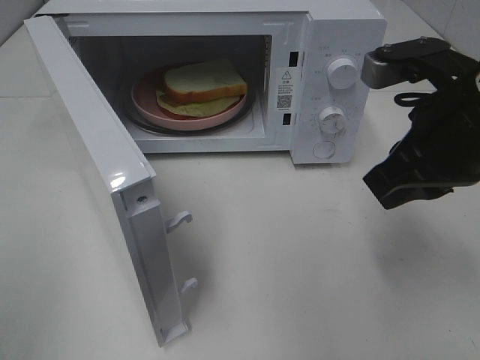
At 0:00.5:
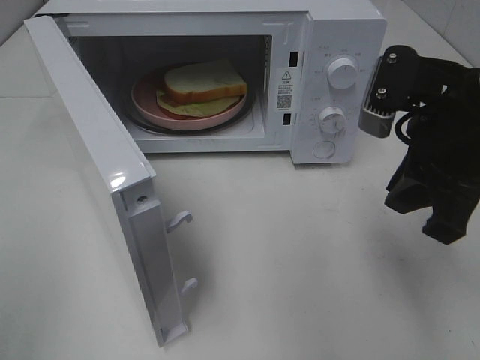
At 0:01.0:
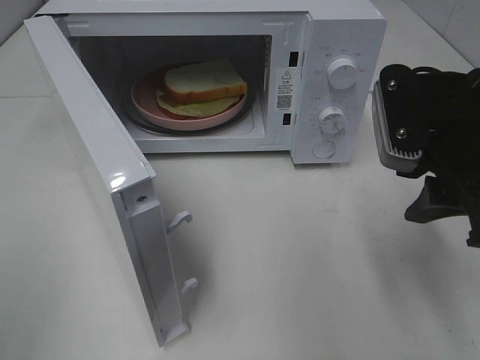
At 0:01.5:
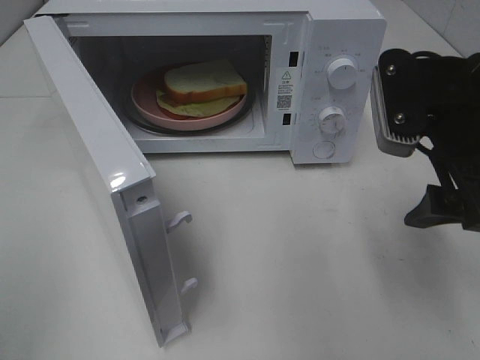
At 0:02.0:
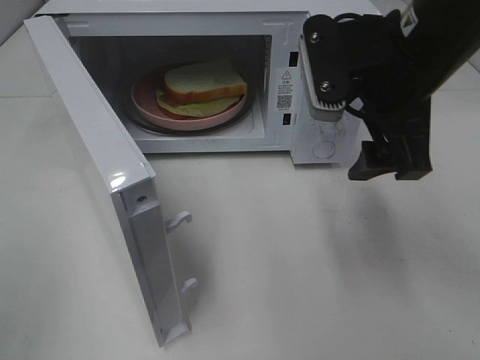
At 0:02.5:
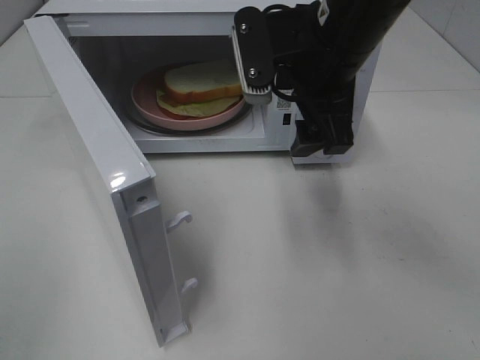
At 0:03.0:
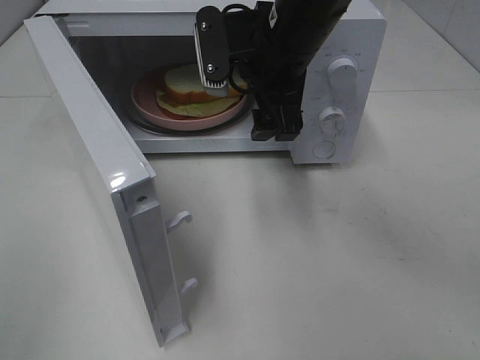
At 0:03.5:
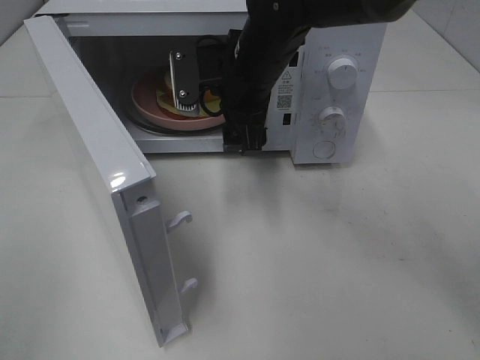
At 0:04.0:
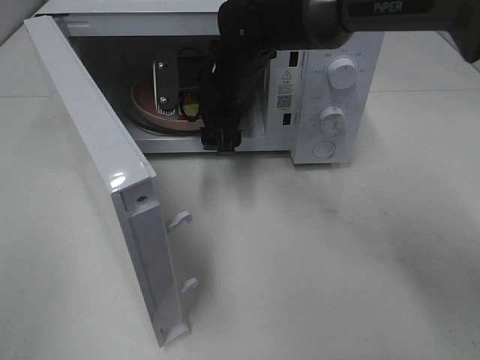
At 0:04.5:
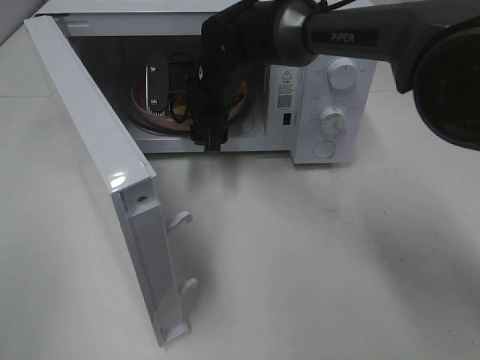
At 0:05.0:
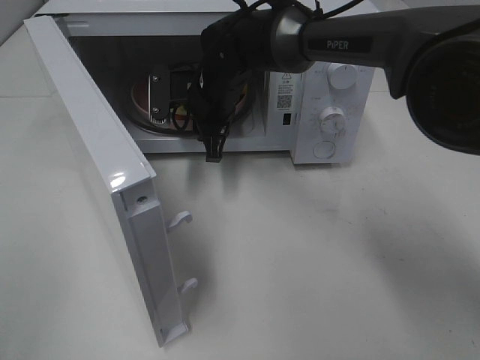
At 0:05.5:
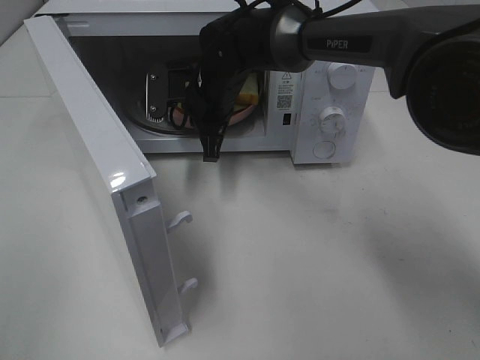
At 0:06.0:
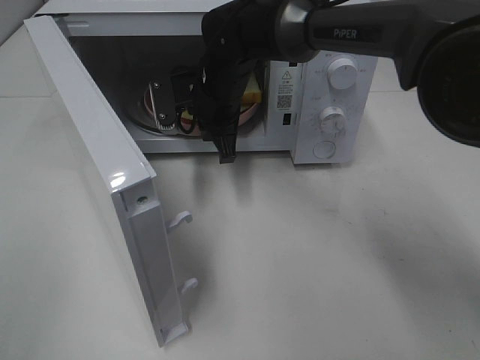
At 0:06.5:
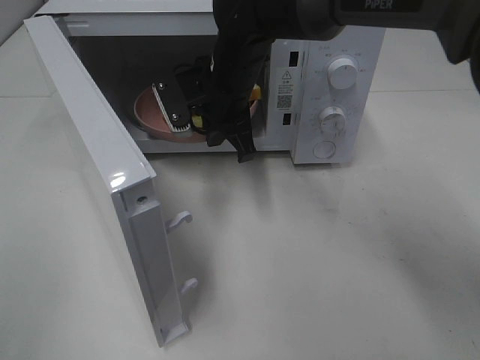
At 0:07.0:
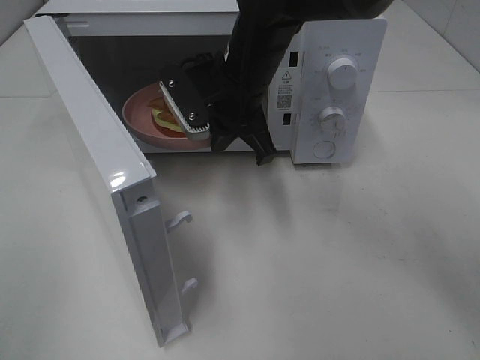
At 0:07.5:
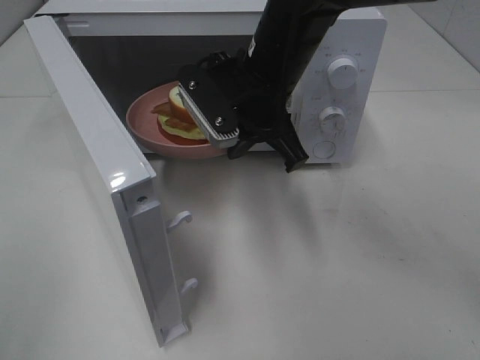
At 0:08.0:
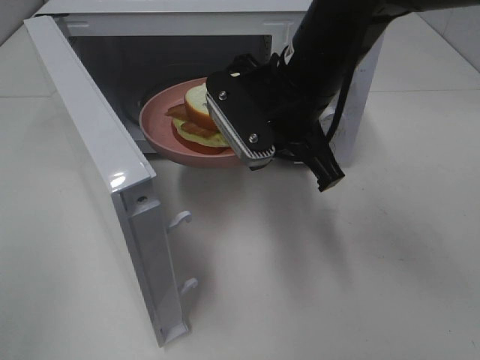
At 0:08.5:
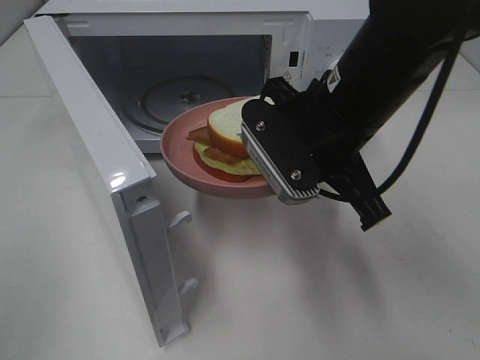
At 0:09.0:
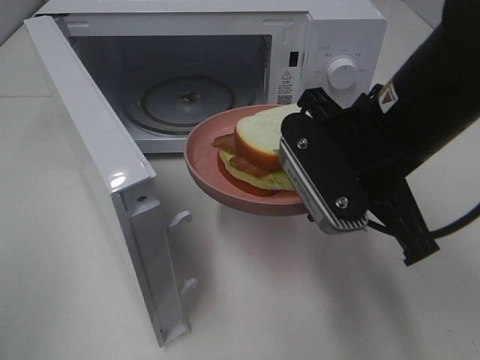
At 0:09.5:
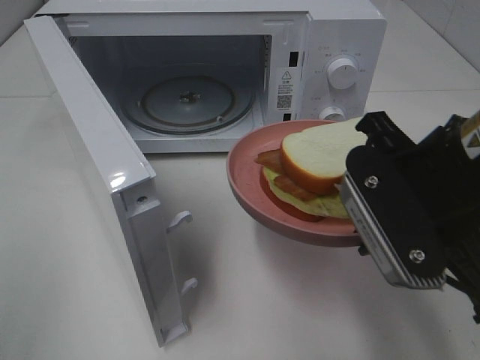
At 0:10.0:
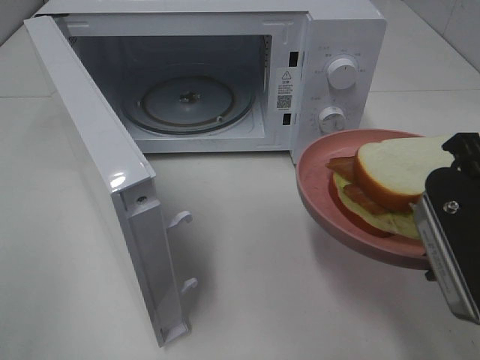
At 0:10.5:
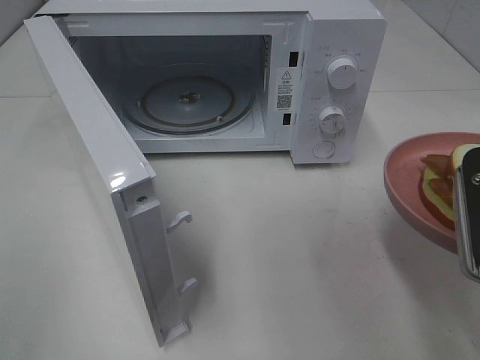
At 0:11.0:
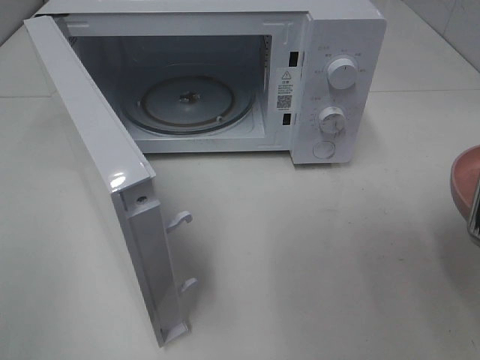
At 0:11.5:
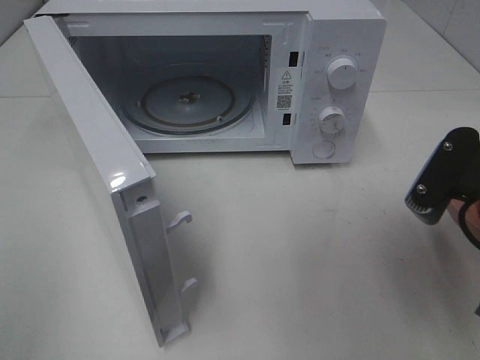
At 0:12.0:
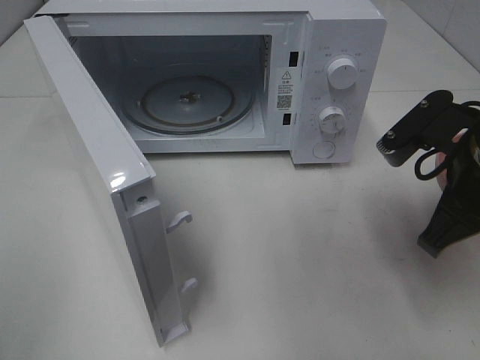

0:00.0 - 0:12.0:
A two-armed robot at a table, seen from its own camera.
Task of the whole recording: Heat Sandwich.
Step, 0:00.0 - 0:05.5: Right hand: grab the plate with the sandwich.
0:00.0 - 0:02.0: The right gripper ends up about 5 cm from where it was, and opens up.
0:02.0 - 0:04.0: The right gripper is displaced forward, to the left and downward by about 25 cm.
0:04.0 - 0:06.0: The right gripper closes.
0:06.0 - 0:08.0: The right gripper goes approximately 15 cm backward, to the right and upward.
0:08.0 - 0:10.0: The right gripper goes about 20 cm backward and to the right.
0:10.0 - 0:12.0: The right gripper shifts roughly 10 cm forward.

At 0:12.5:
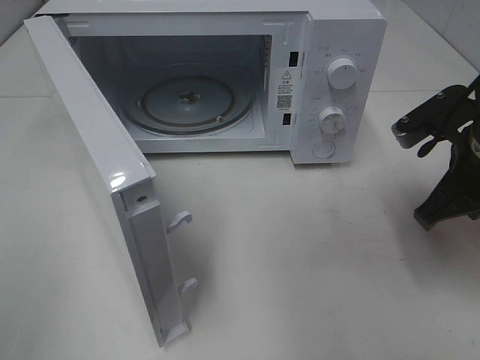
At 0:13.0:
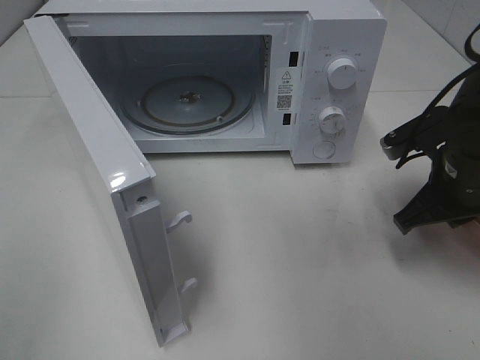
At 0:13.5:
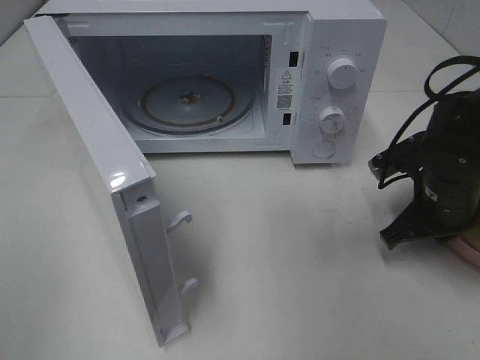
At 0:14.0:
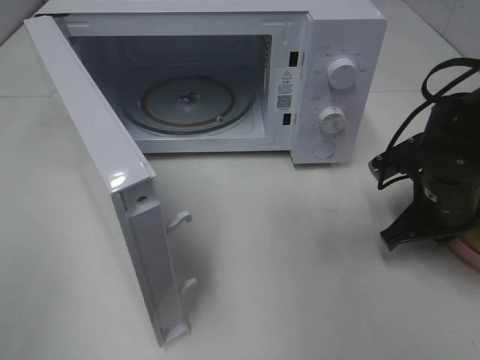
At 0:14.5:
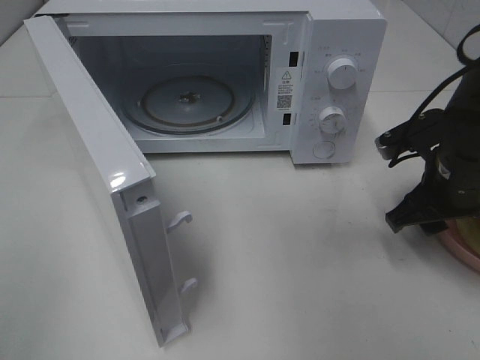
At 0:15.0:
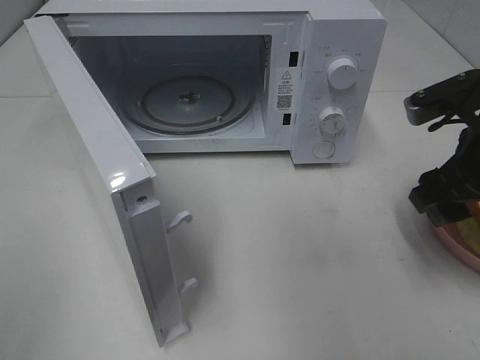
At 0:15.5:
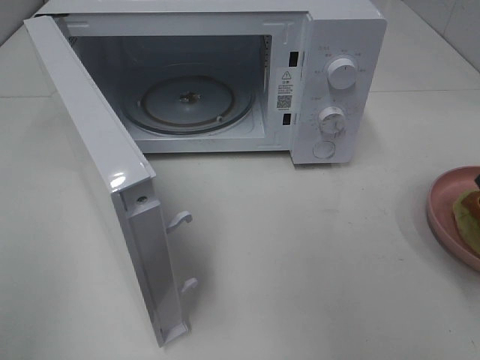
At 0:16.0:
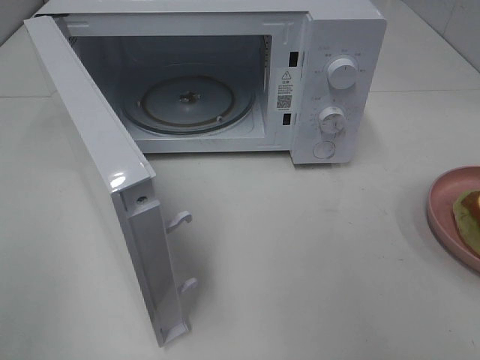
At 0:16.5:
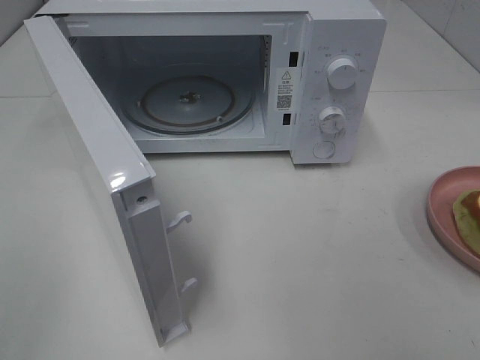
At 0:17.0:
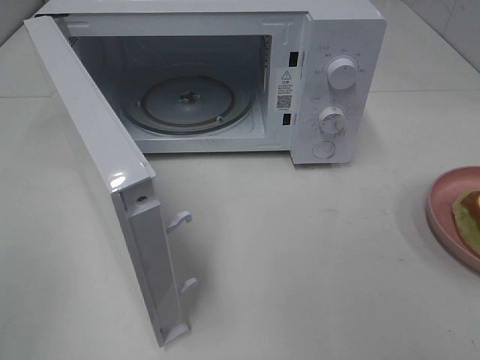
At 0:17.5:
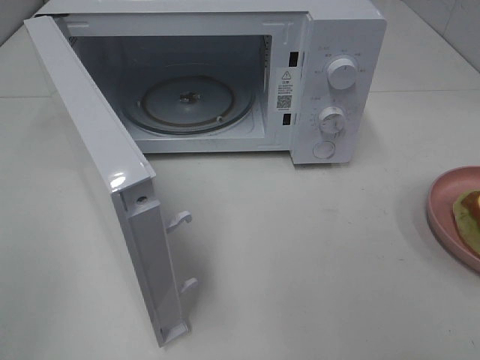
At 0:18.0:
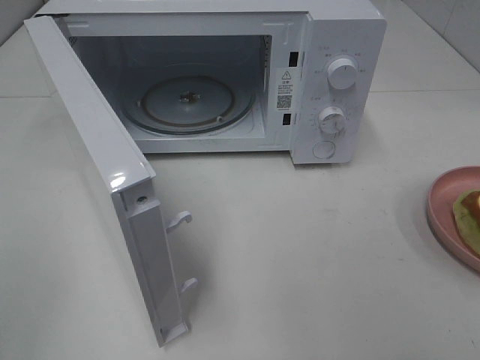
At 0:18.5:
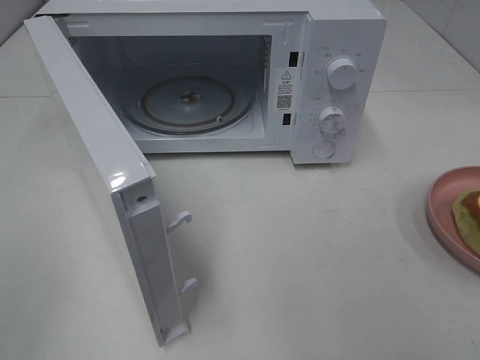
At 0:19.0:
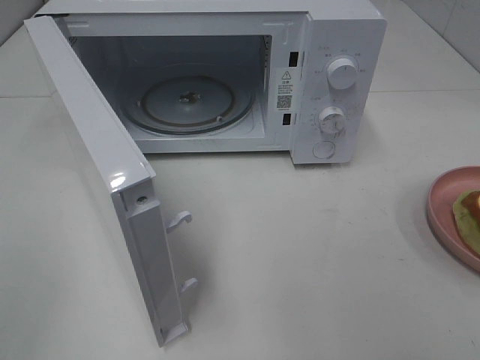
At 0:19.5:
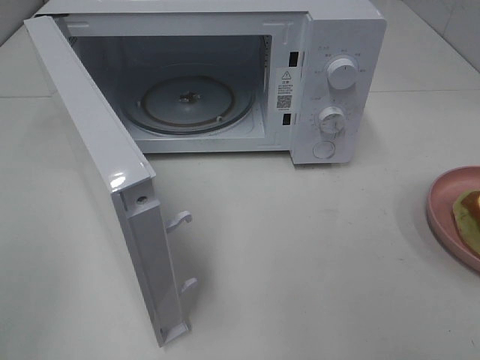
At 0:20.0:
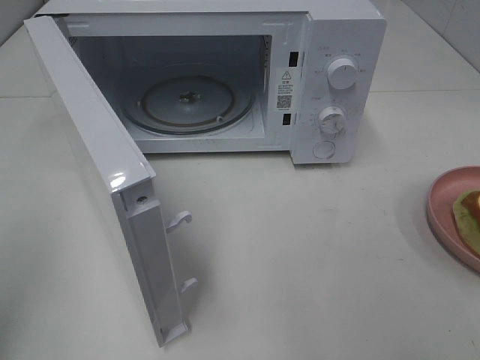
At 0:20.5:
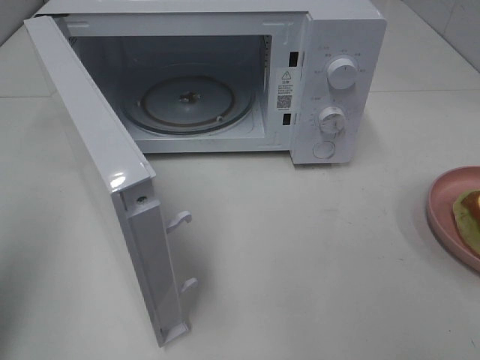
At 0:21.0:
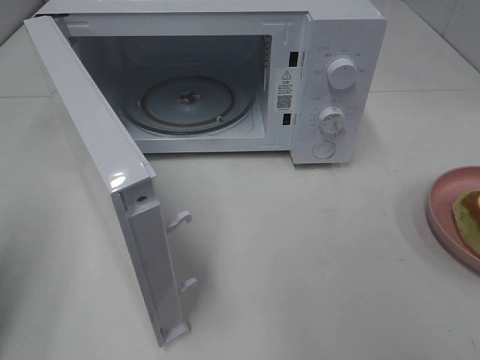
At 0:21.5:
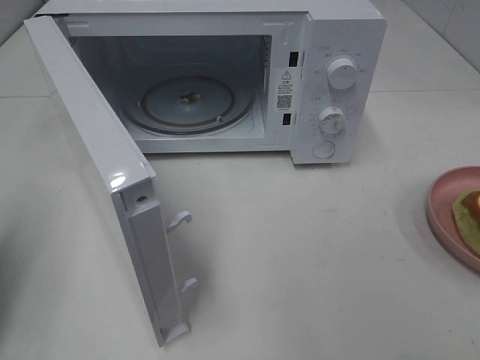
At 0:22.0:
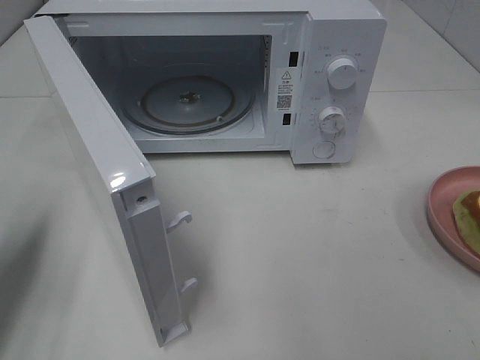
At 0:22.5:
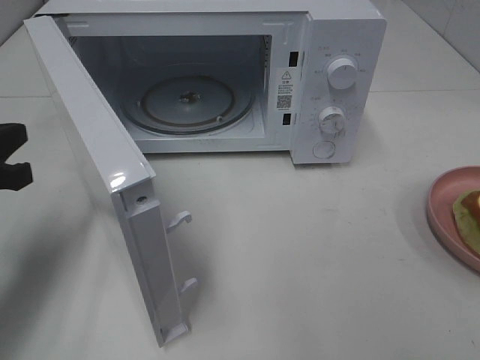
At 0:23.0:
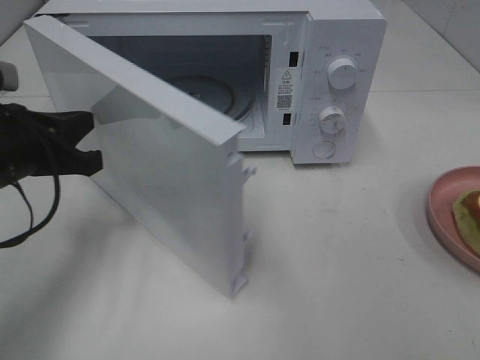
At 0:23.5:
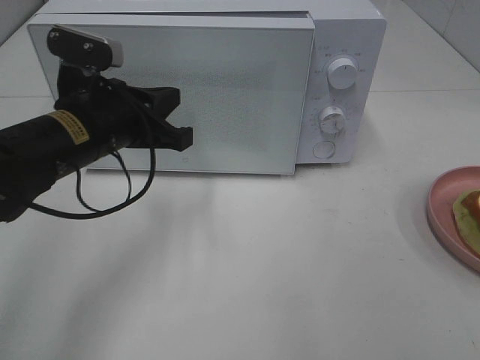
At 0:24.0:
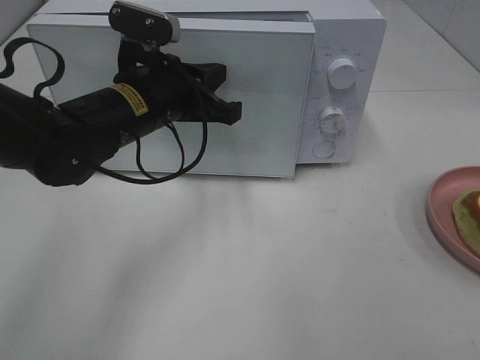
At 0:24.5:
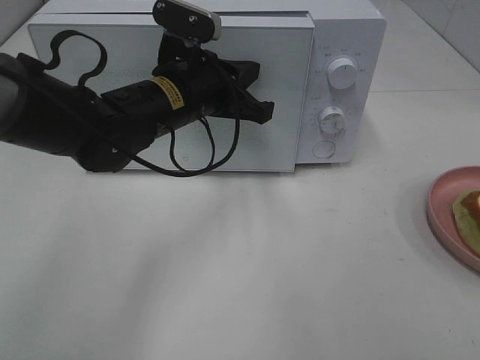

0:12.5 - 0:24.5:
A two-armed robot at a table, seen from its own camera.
Task of the whole recording: Heat Sandwich.
0:12.5 - 0:14.5: The right gripper opens its fingers.
0:14.5 - 0:16.5: The right gripper goes some 30 cm backward and upward.
0:18.5 - 0:20.5: The left gripper heads forward, covering roughly 10 cm, and closes its fingers.
0:20.5 - 0:22.5: The left gripper moves forward and downward, about 20 cm.
0:22.5 - 0:24.5: The left gripper is displaced to the right and forward by some 25 cm.

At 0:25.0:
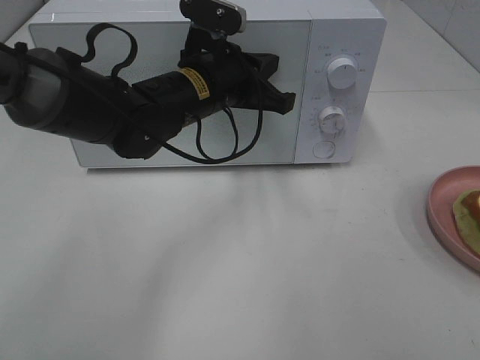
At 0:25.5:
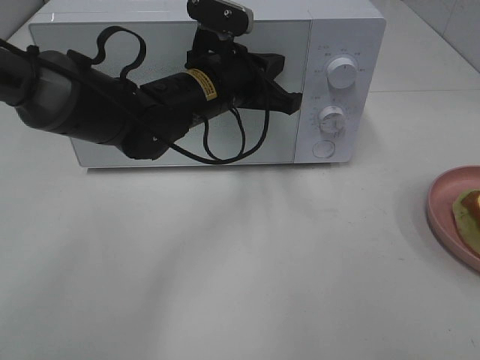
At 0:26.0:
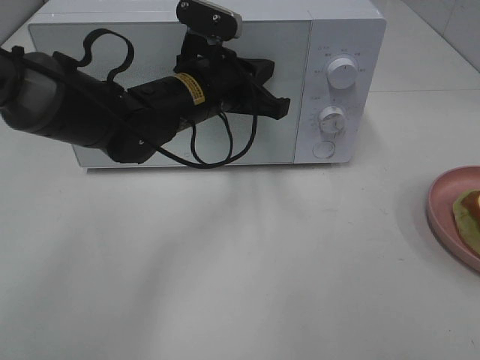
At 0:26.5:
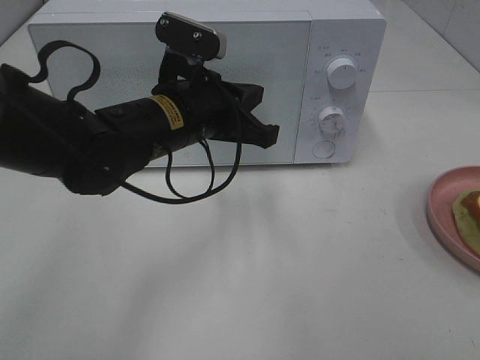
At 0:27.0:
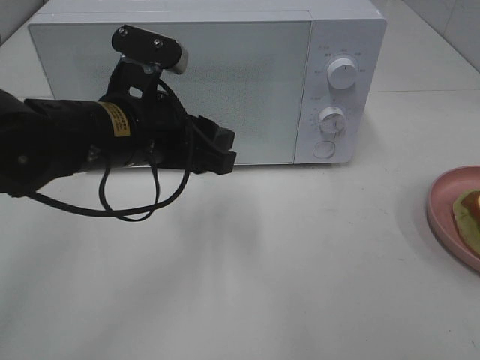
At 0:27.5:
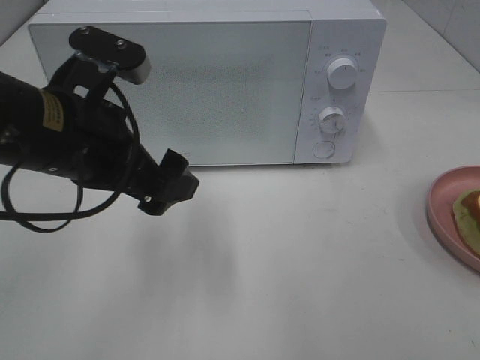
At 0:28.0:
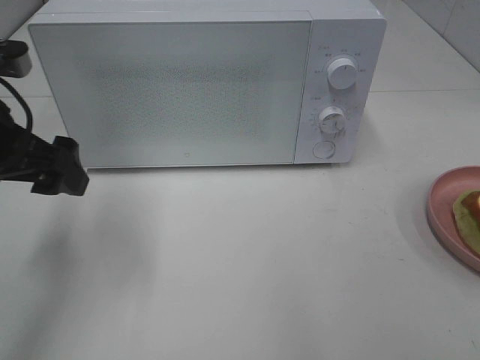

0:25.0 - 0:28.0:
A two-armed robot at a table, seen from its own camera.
Task of the whole recording: Heat Sandwich.
0:25.0 - 0:26.5: The left gripper moves backward, roughly 5 cm.
0:26.5 - 0:28.0: The left gripper shifts roughly 15 cm to the left, and opens up.
